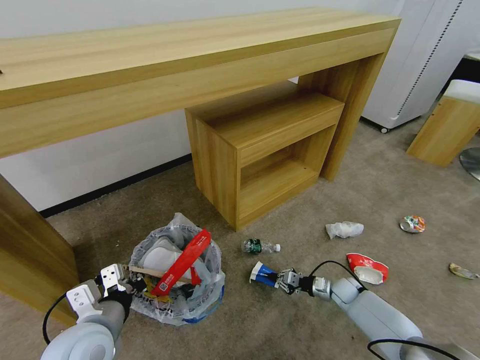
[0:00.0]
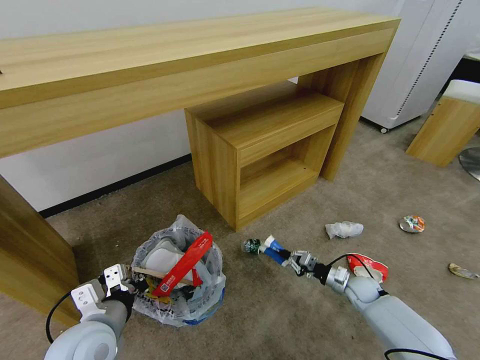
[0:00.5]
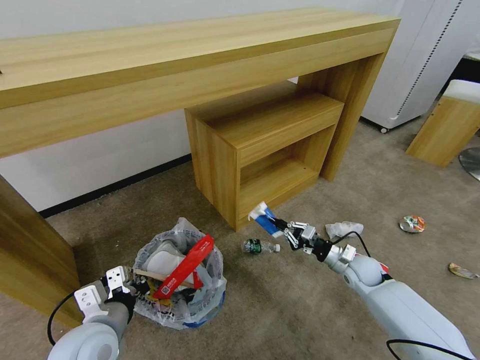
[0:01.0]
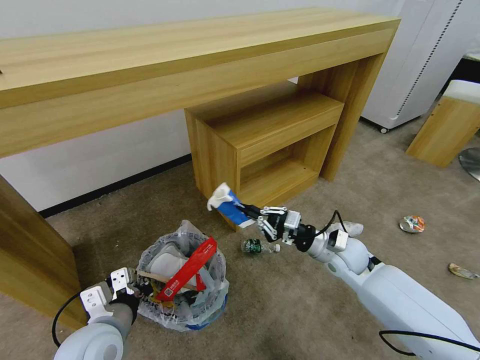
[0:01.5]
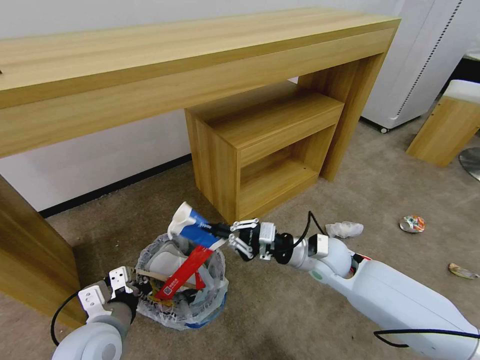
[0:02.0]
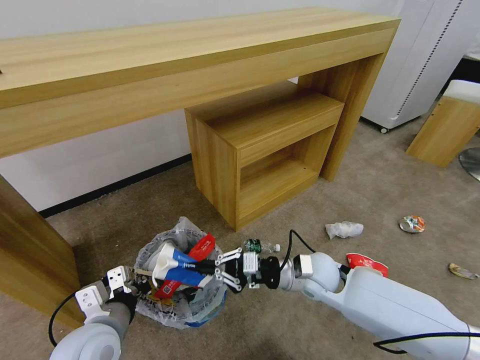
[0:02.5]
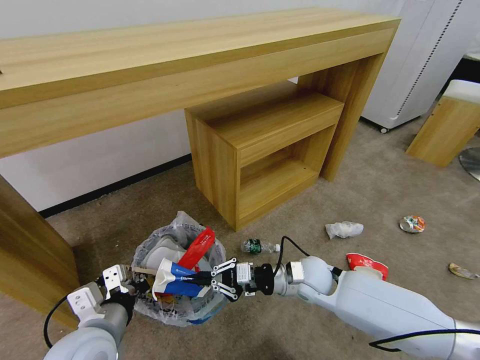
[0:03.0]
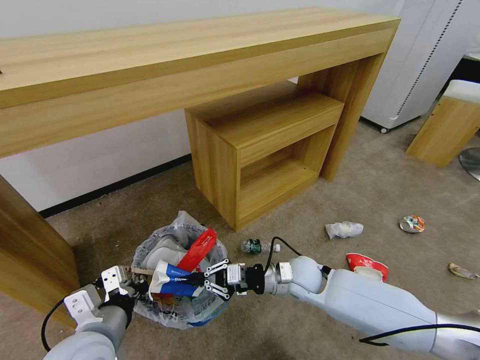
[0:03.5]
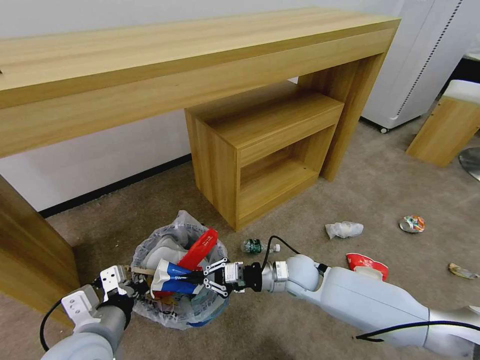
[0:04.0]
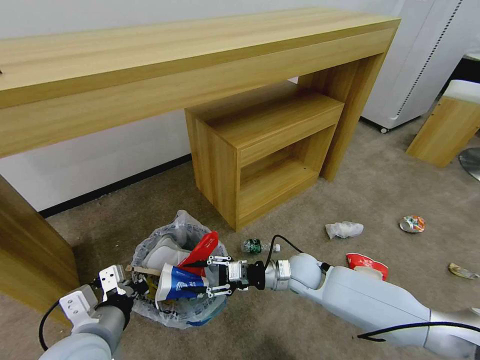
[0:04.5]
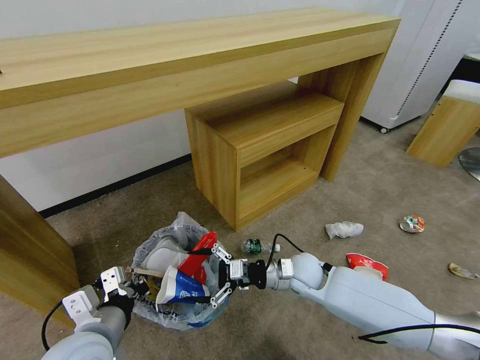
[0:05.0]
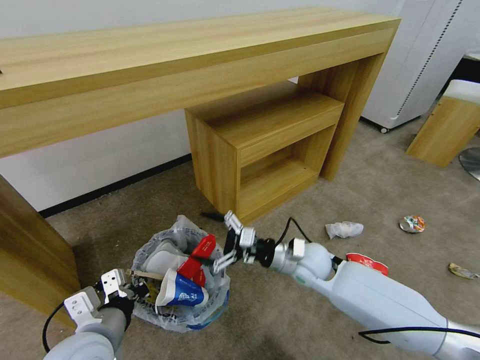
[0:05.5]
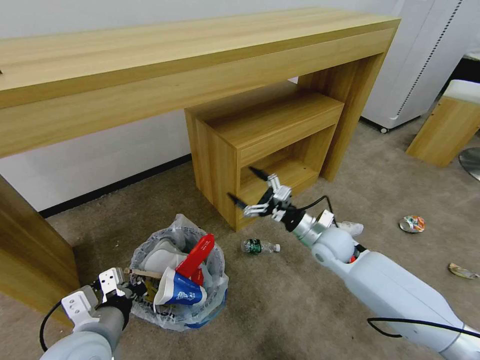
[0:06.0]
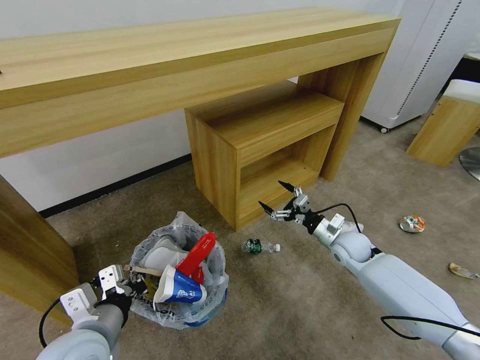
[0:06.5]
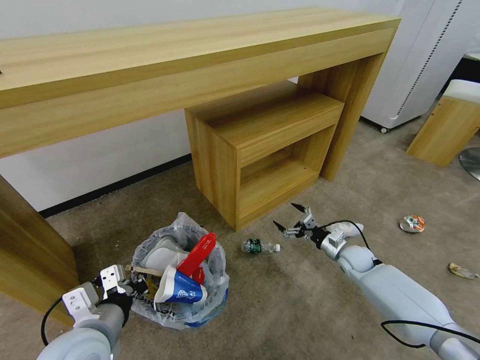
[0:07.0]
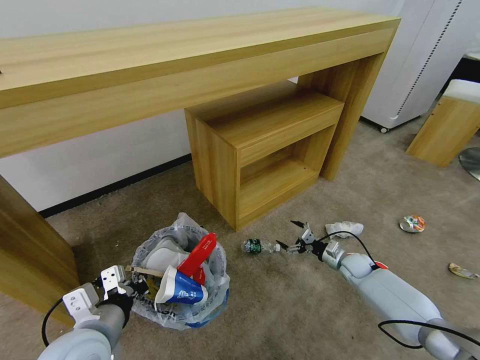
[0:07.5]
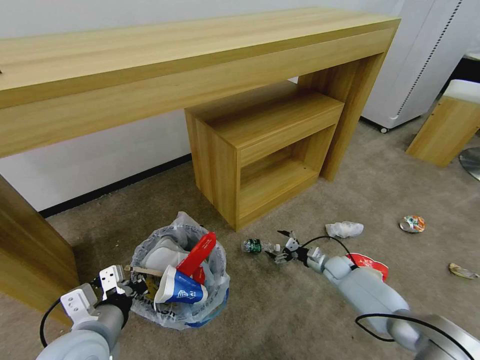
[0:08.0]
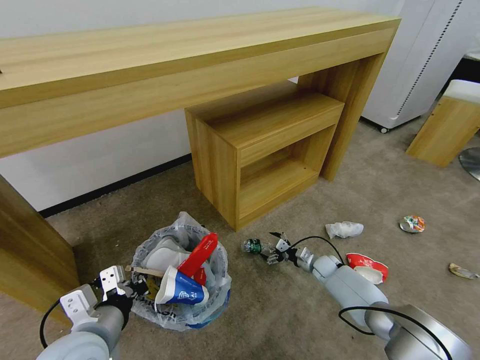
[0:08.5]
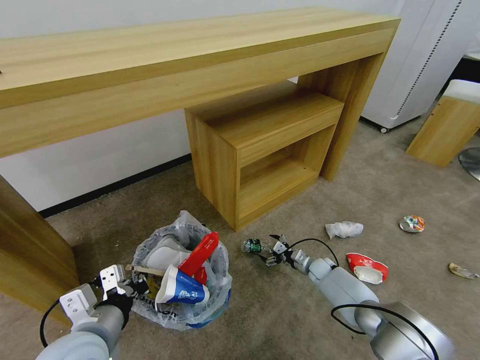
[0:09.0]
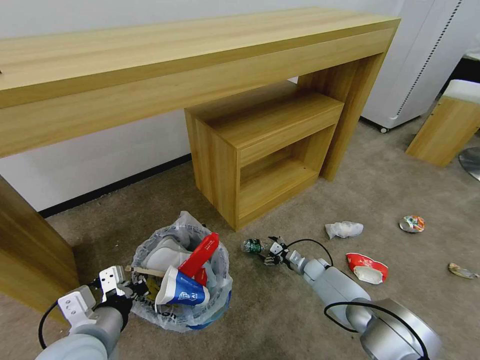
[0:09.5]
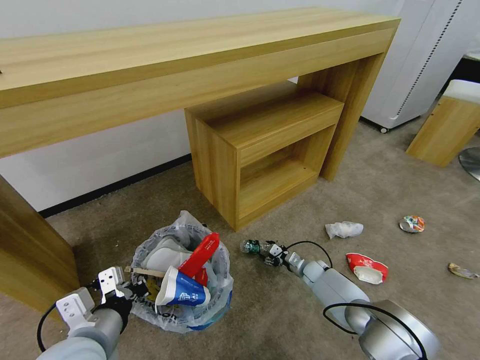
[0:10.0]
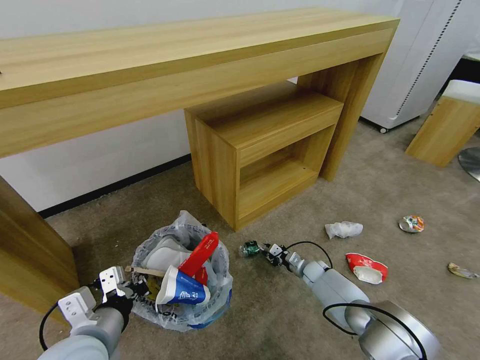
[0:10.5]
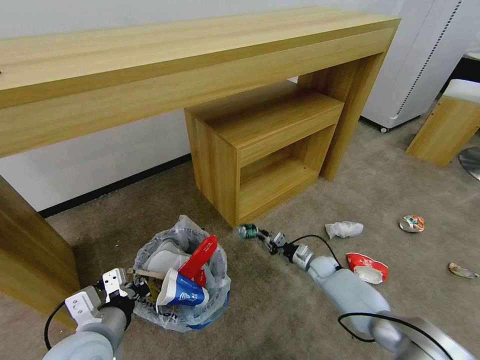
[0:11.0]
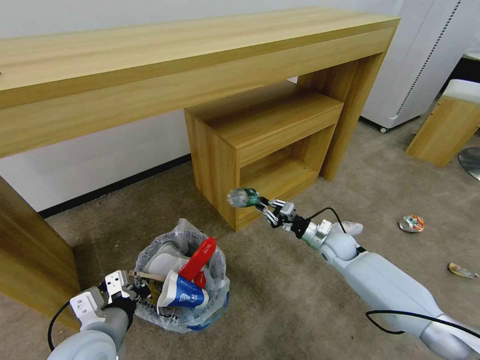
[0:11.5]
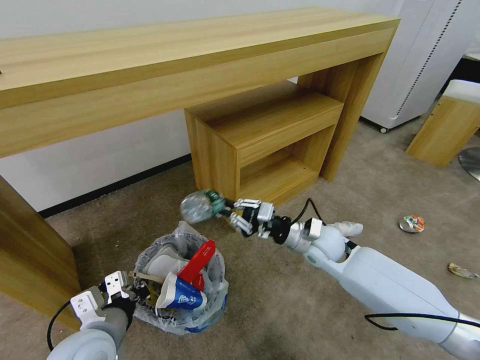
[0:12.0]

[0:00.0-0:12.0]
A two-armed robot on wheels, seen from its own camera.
Task of the whole recording: Pick up the trash bin and place the garbage on the floor into it.
0:00.0 to 0:02.0: The right gripper travels upward and to the left by roughly 30 cm.
0:02.0 to 0:04.0: The right gripper goes roughly 10 cm downward and to the left.
0:04.0 to 0:06.0: The right gripper heads to the right and upward, covering some 10 cm, and opens its fingers.
0:06.0 to 0:08.0: The right gripper shifts about 25 cm downward and to the right.
0:08.0 to 0:10.0: The right gripper goes roughly 5 cm to the left, and closes.
0:10.0 to 0:12.0: The right gripper moves upward, some 25 cm, and closes up.

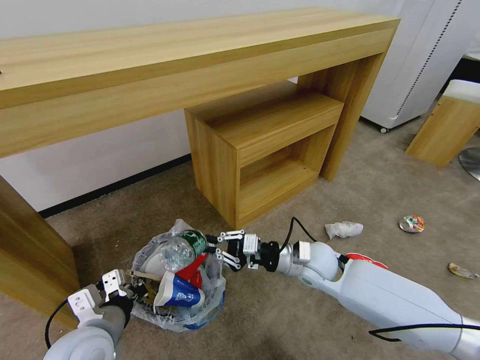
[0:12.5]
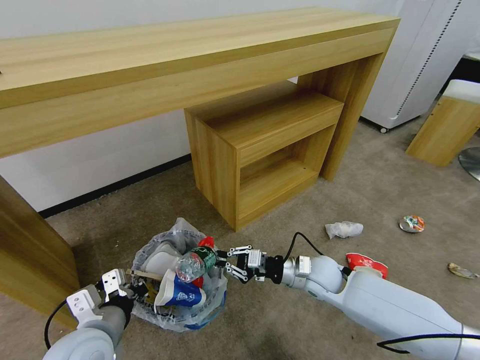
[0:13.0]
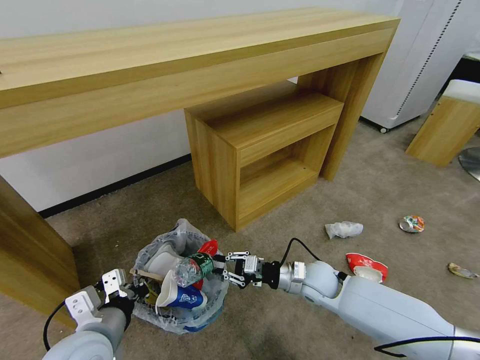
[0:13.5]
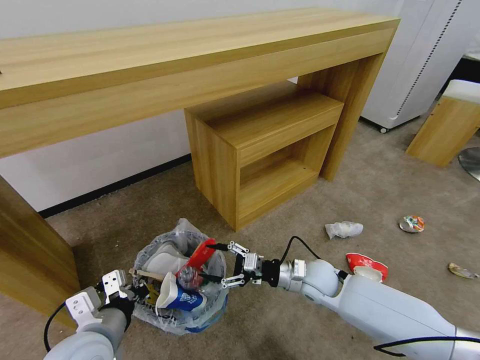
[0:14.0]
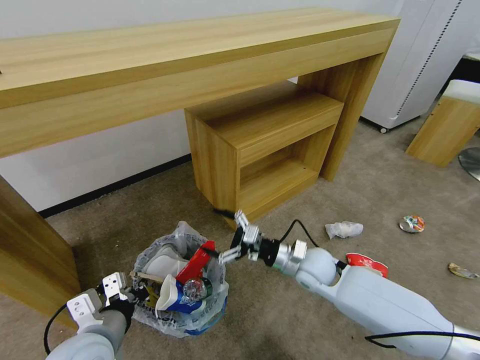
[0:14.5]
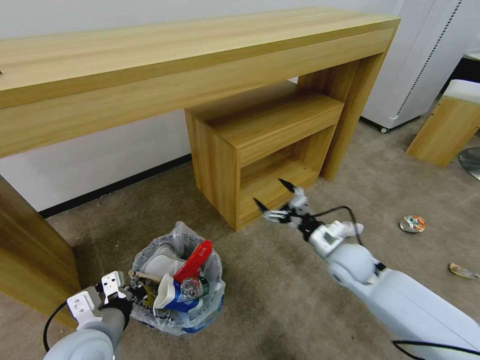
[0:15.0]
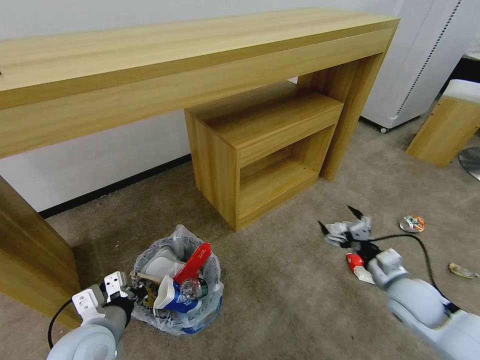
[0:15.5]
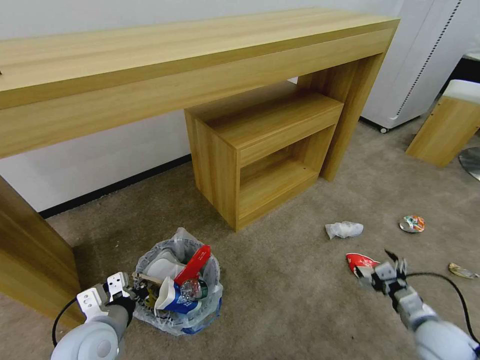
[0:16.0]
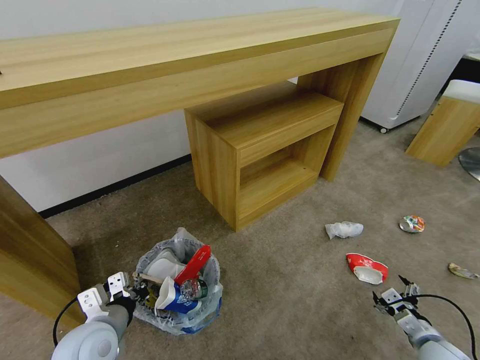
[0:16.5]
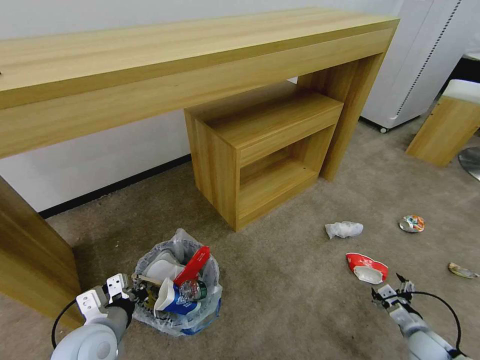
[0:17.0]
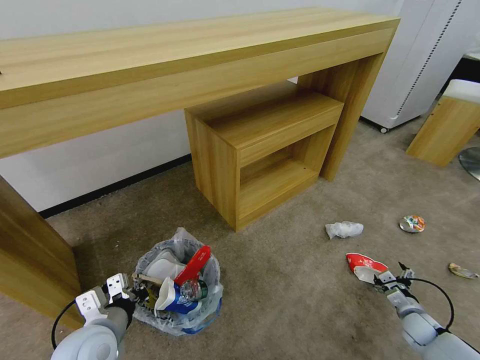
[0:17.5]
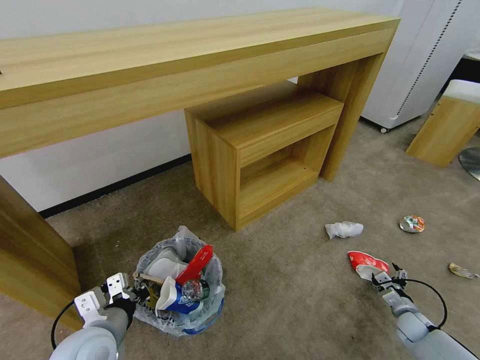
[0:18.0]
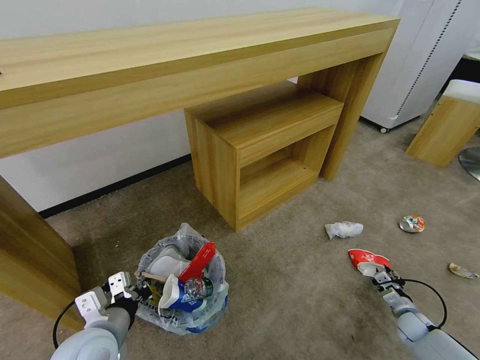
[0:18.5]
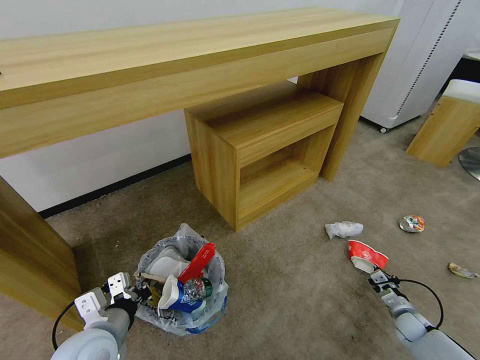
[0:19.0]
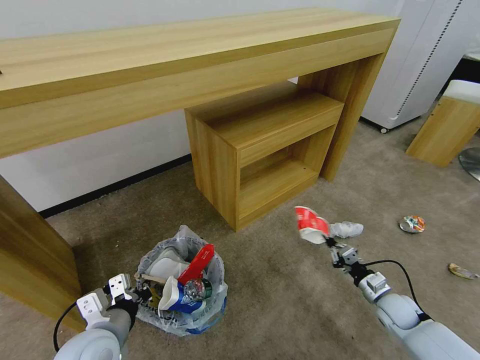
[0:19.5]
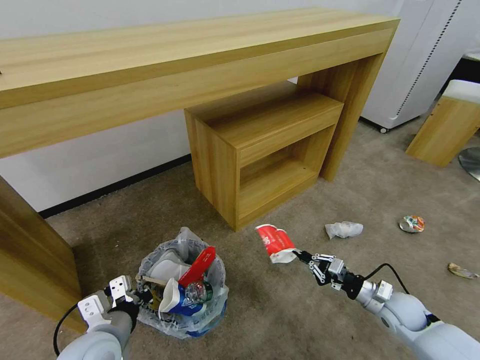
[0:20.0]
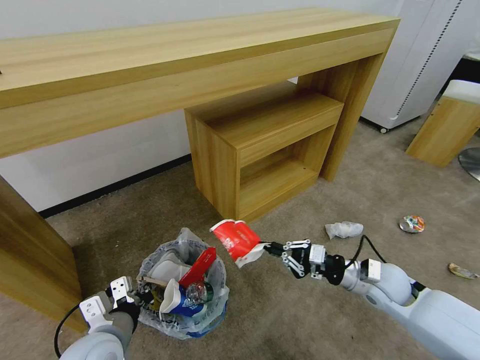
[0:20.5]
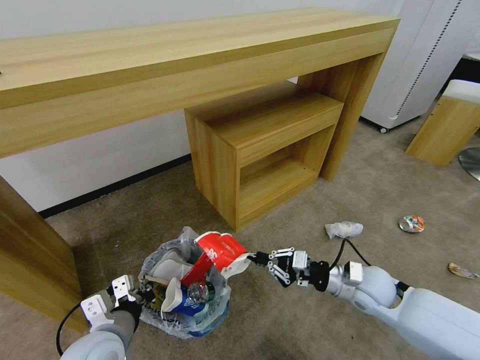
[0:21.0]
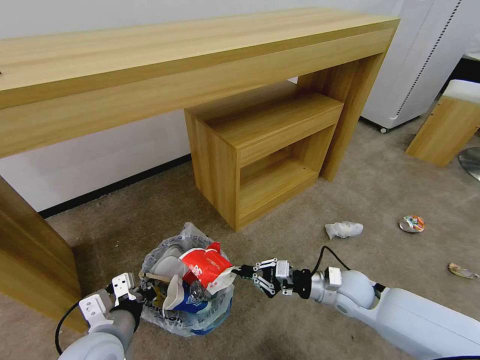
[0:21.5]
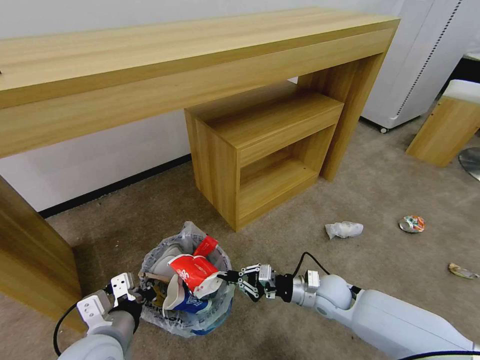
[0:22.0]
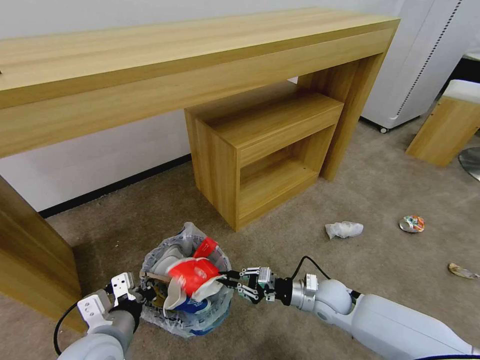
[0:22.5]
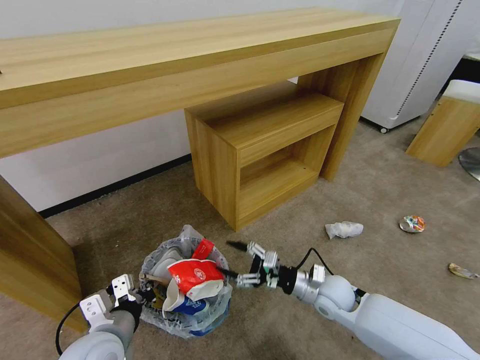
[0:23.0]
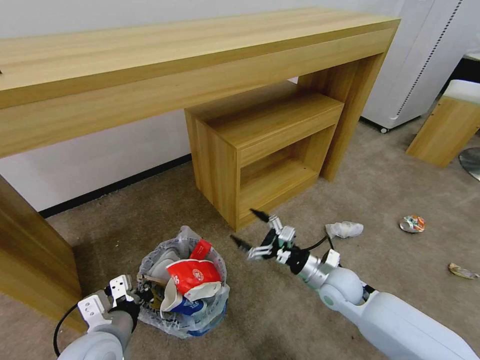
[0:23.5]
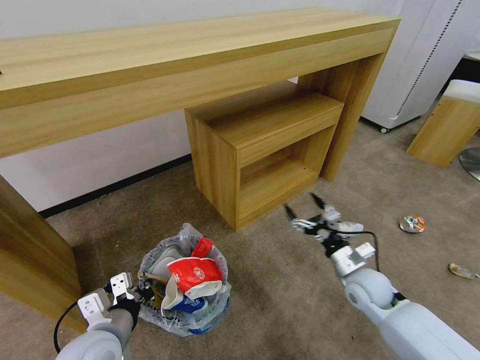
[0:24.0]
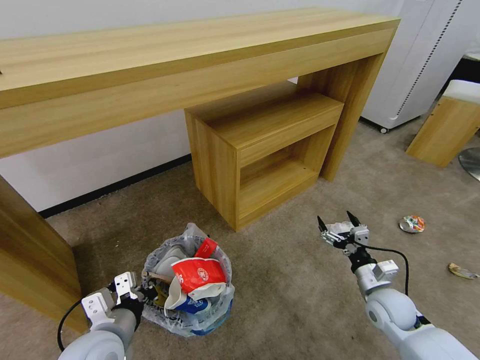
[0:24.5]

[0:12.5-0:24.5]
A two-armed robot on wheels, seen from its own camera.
Task of the whole recording: Pick up the trash bin and place the garbage on the floor into it.
0:12.5 to 0:14.5: The right gripper opens up.
0:14.5 to 0:16.5: The right gripper moves to the right, backward and downward, about 35 cm; the left gripper shifts by approximately 5 cm.
0:16.5 to 0:18.5: The right gripper heads downward, forward and to the right, covering some 15 cm, and closes its fingers.
0:18.5 to 0:20.5: The right gripper goes some 30 cm upward and to the left.
0:20.5 to 0:22.5: The right gripper heads to the left and downward, covering about 15 cm.
0:22.5 to 0:24.5: The right gripper is displaced to the right by about 10 cm, and opens.

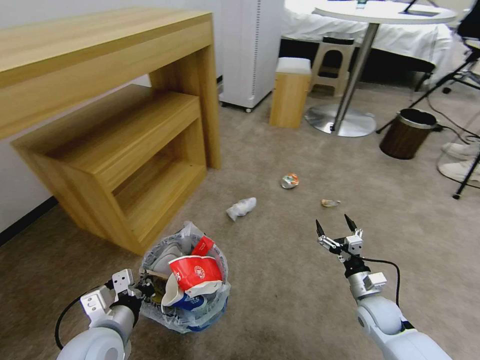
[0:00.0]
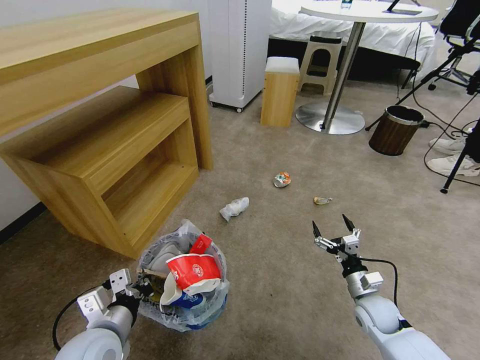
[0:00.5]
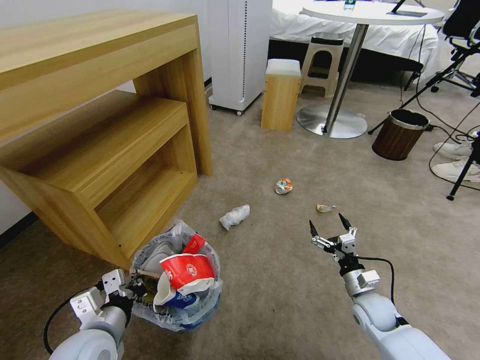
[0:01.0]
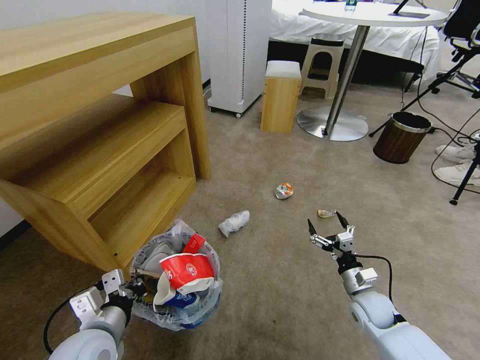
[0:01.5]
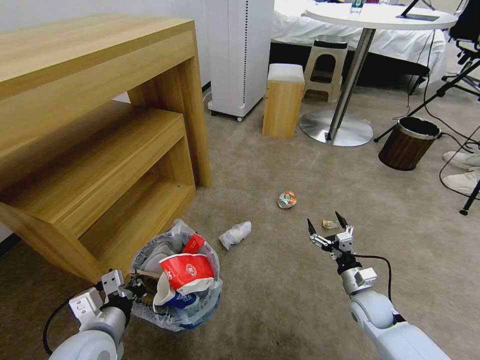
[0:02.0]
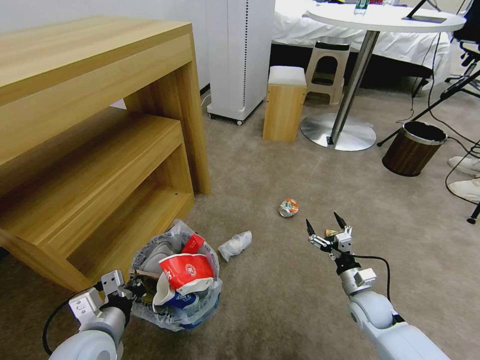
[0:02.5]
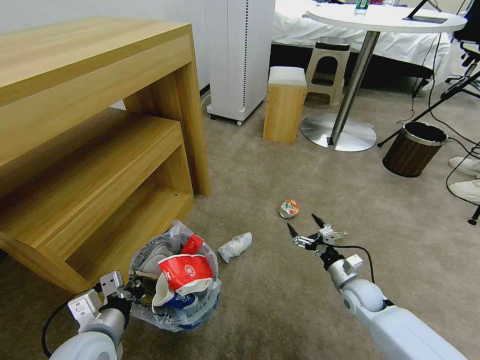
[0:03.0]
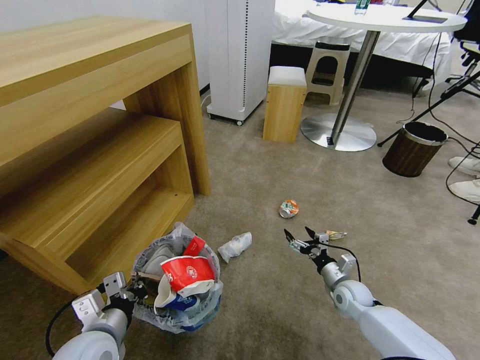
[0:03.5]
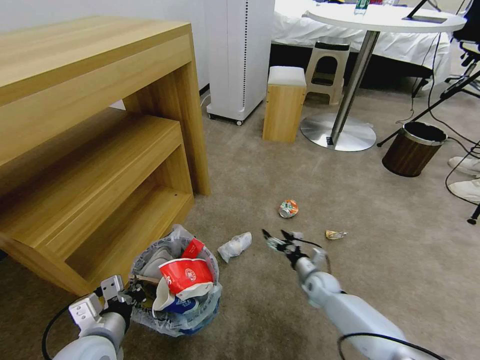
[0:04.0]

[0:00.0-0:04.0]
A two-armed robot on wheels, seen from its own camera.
Task of the whole recording: Pick up the trash bin and place the garbage on the floor into it.
0:02.0 to 0:04.0: The right gripper shifts some 15 cm forward, to the left and downward.
